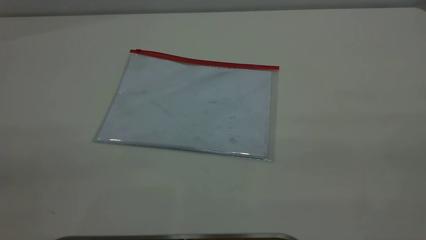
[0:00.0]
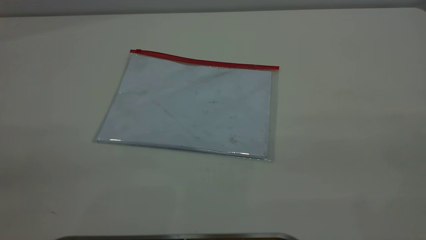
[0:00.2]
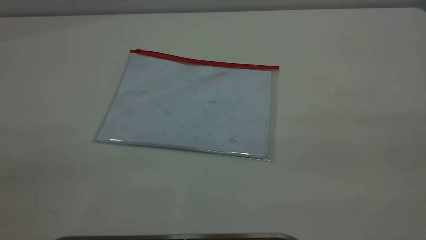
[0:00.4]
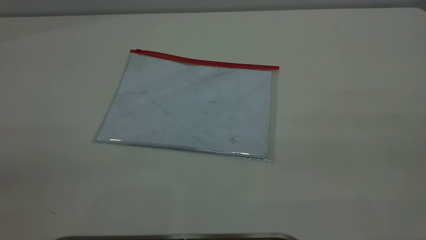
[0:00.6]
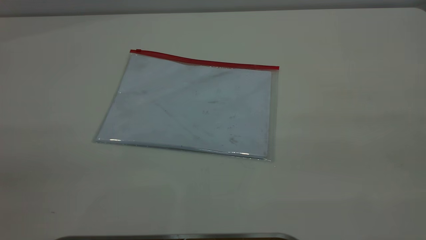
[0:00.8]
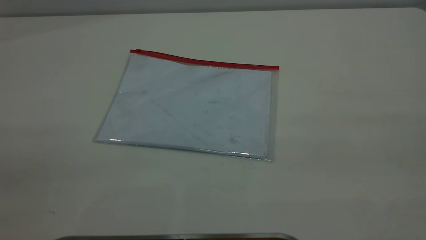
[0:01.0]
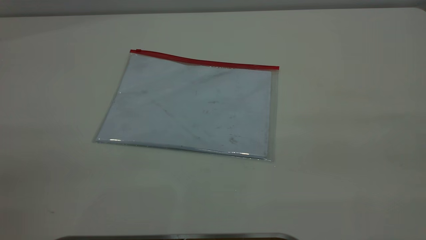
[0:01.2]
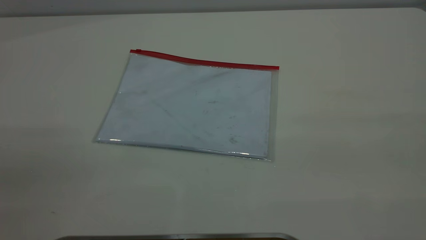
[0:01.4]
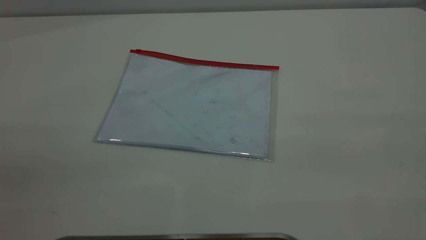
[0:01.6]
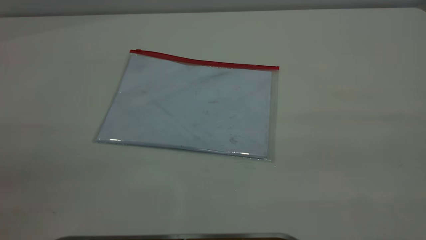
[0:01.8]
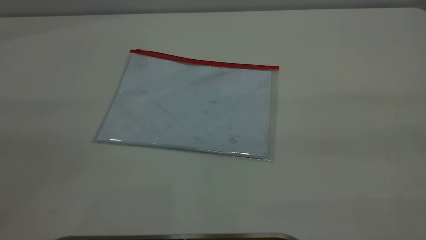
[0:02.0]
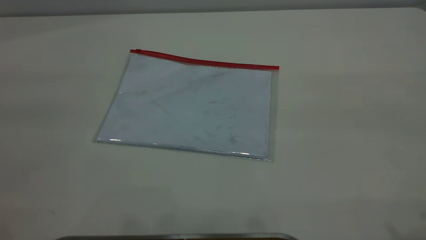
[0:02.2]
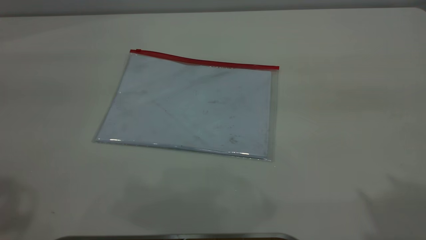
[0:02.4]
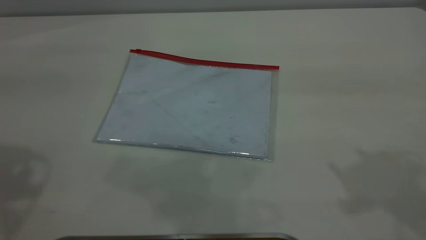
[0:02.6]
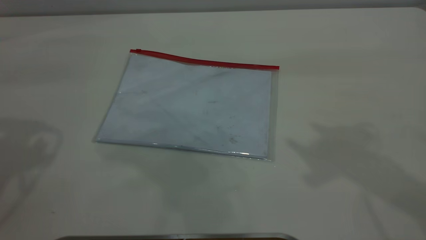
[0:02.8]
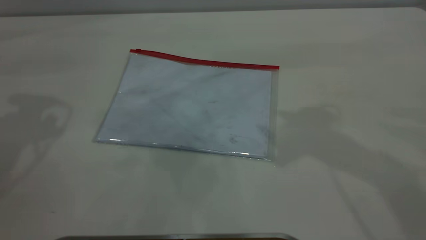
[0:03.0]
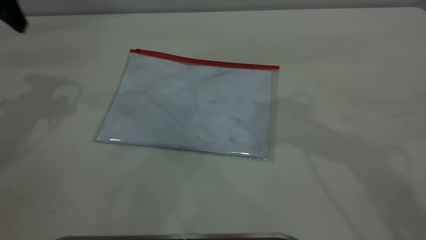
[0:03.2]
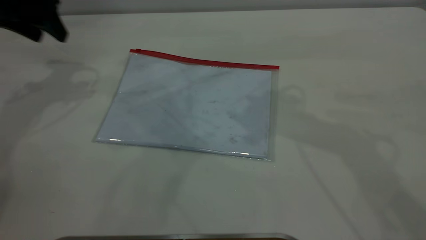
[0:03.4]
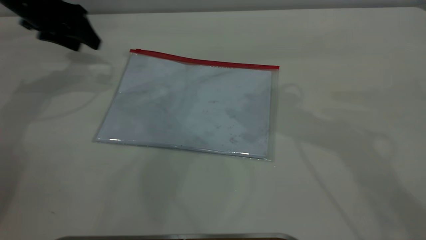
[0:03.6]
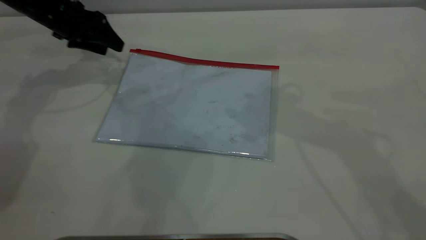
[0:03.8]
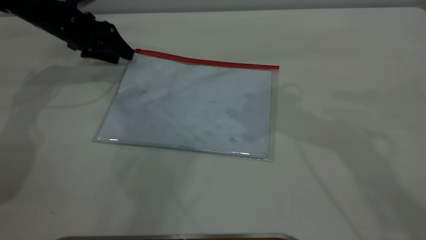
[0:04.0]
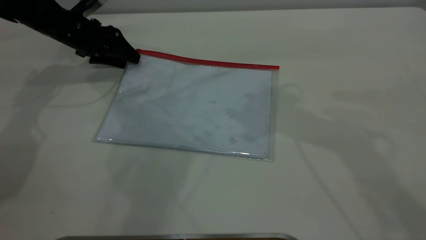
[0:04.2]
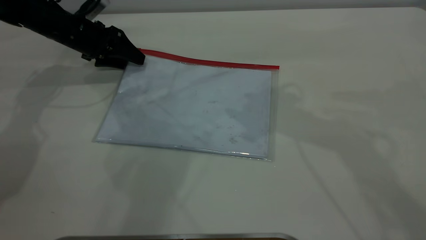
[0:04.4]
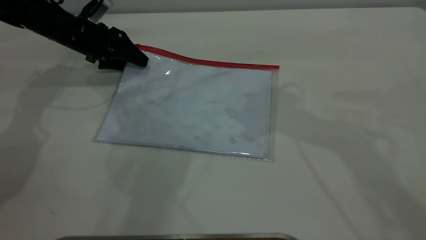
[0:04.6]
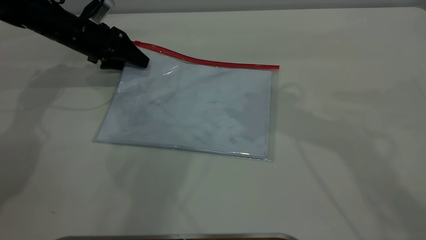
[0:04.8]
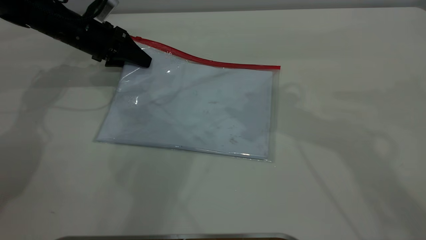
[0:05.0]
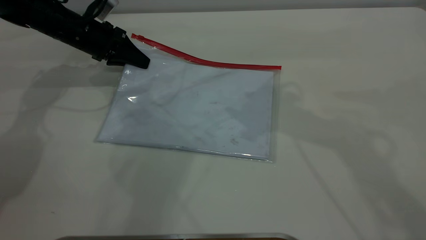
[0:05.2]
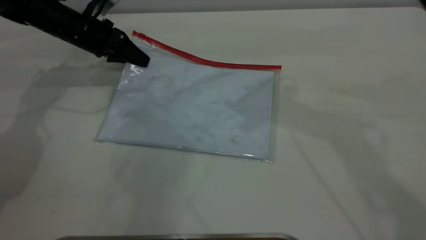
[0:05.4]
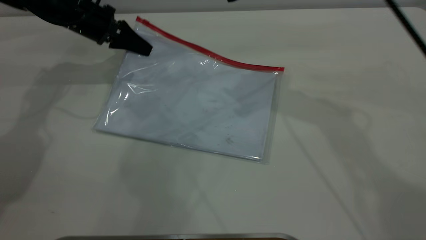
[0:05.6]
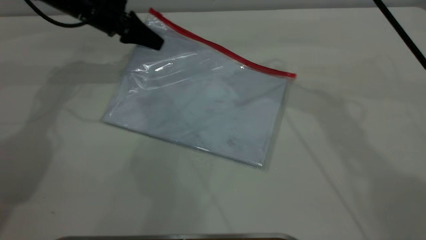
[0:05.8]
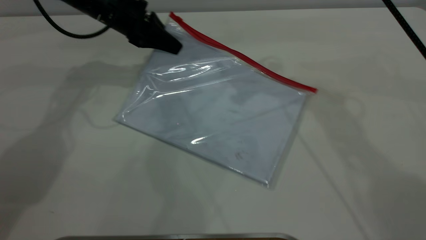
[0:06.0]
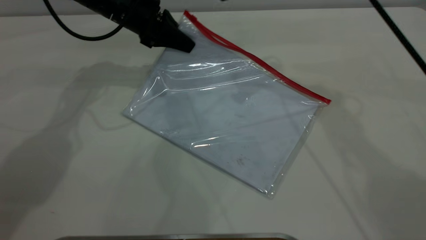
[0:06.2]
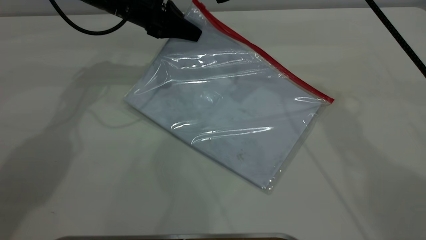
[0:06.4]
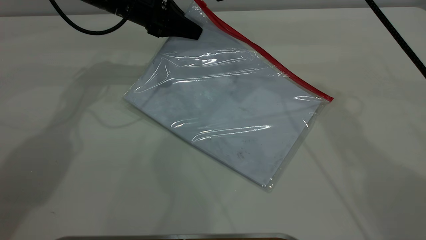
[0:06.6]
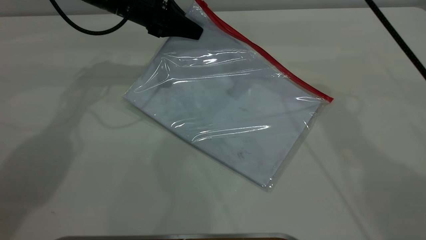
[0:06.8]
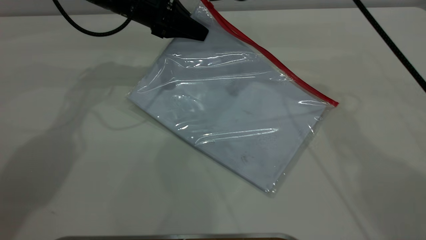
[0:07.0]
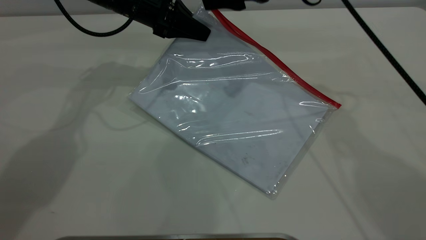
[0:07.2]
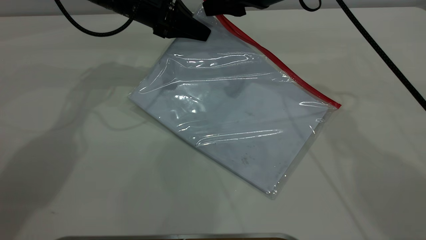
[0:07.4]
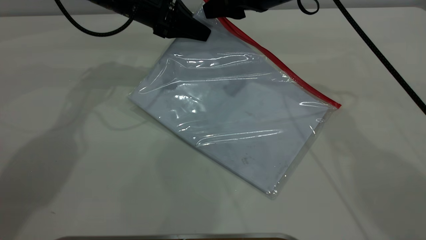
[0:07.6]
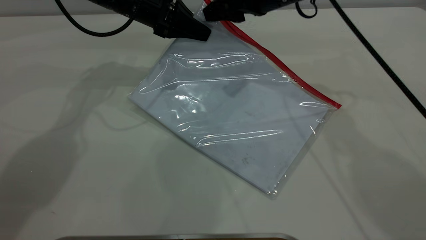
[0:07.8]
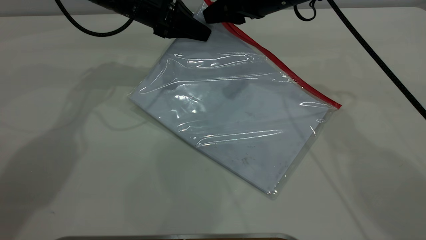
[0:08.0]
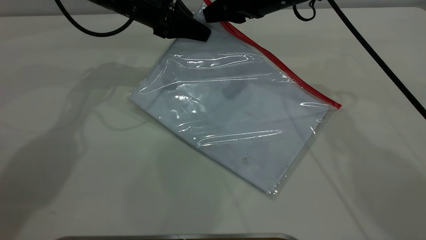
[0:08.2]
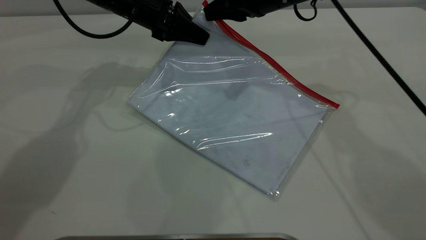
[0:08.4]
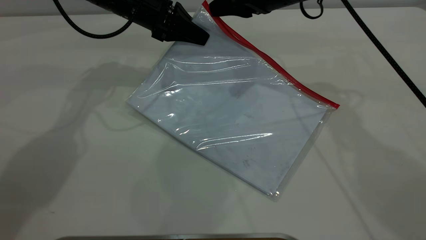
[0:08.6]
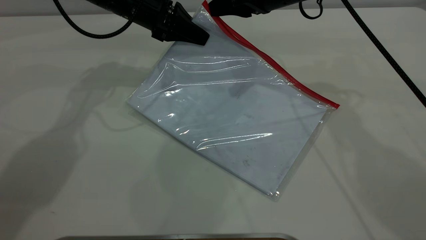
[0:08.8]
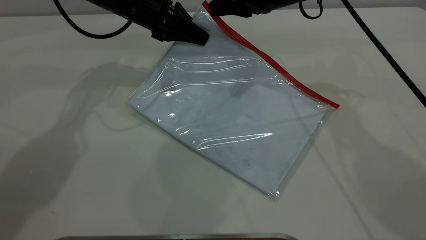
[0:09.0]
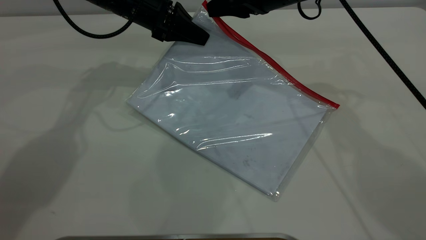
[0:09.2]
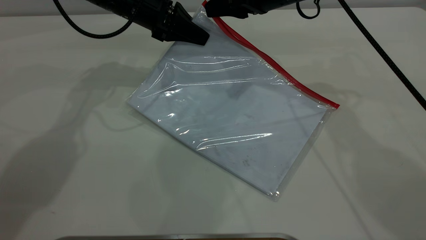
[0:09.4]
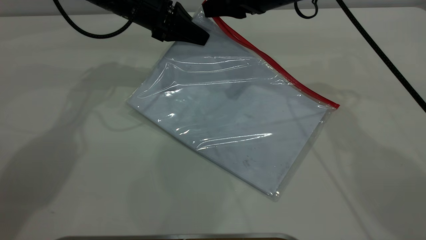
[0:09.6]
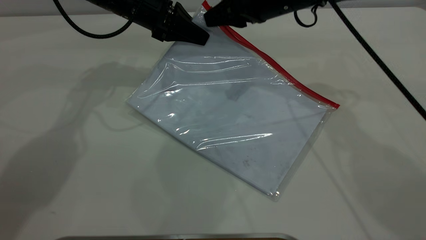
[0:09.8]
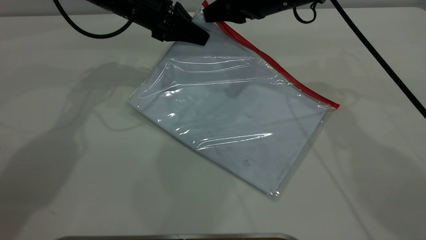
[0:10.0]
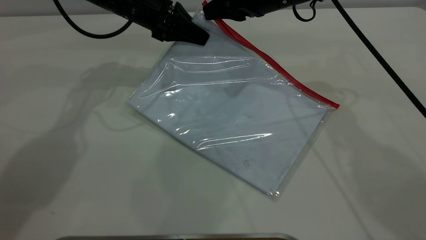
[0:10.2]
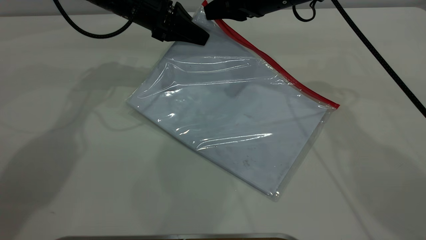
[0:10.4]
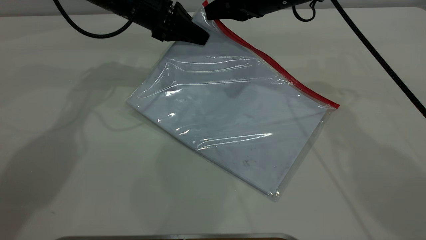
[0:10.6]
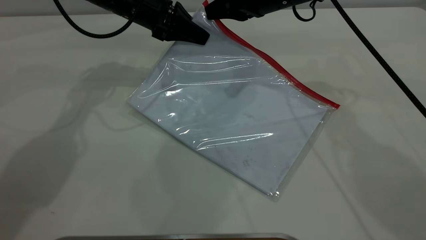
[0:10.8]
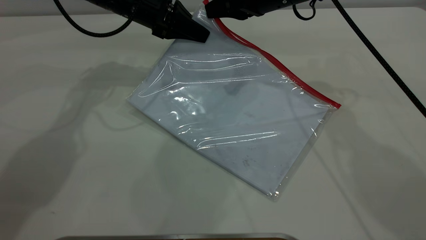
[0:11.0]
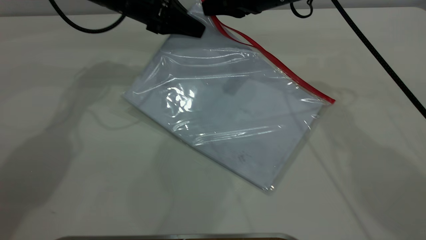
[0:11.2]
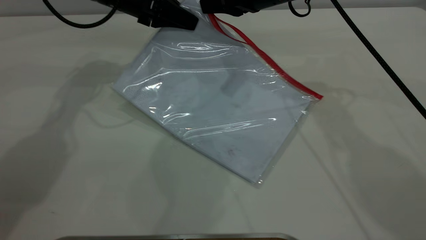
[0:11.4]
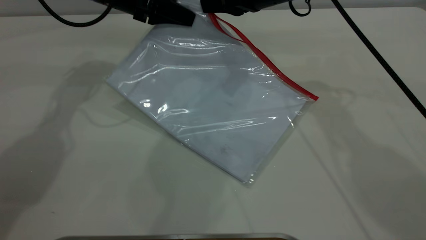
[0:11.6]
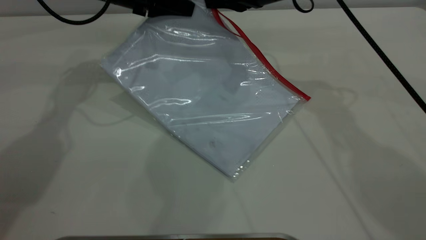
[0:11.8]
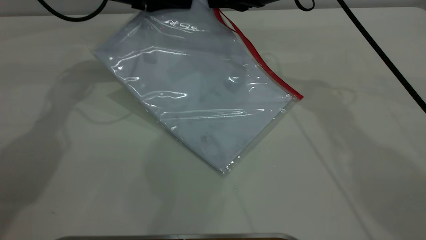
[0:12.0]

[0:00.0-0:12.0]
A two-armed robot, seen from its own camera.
Step, 0:00.0 to 0:05.0: Pick up the transparent plastic bag with the left gripper.
0:00.0 to 0:01.6: The two grippers keep their place.
0:03.0 to 0:04.4: The left gripper moves downward and forward, approximately 25 cm.
0:04.4 to 0:06.0: The left gripper heads to the right and upward, covering roughly 10 cm, and closes its fingers; the right gripper shifts some 10 cm forward.
0:06.0 to 0:07.6: The right gripper goes some 5 cm downward.
0:07.6 to 0:09.0: The right gripper closes up.
0:09.0 to 0:10.4: Neither gripper changes place.
0:10.4 to 0:12.0: The left gripper changes place by approximately 5 cm.

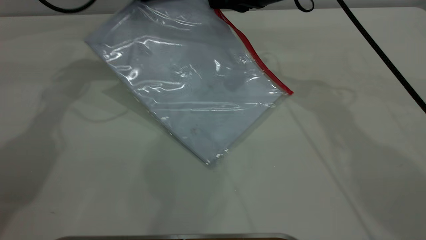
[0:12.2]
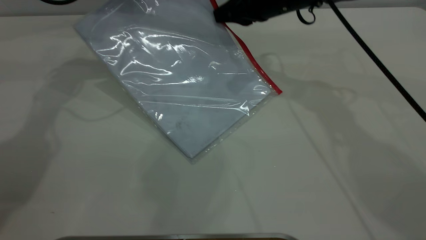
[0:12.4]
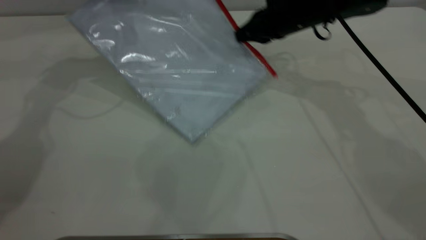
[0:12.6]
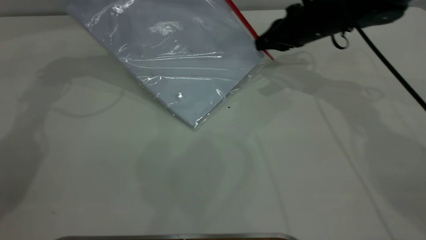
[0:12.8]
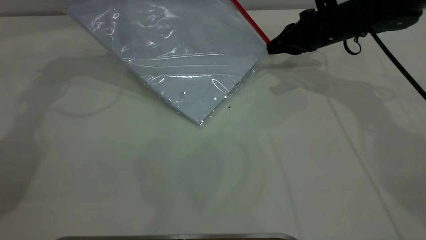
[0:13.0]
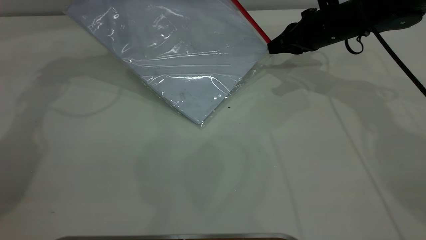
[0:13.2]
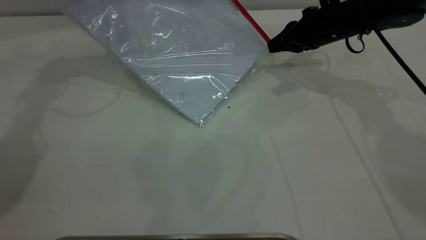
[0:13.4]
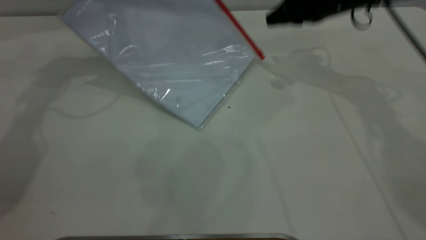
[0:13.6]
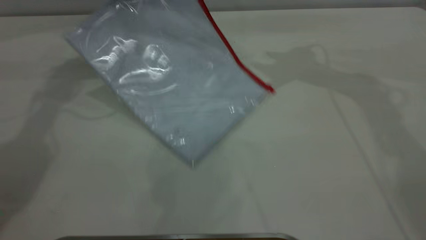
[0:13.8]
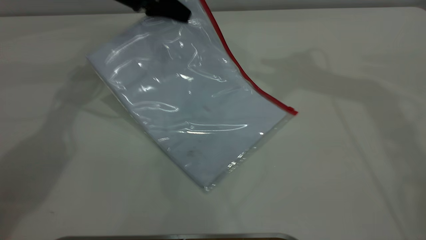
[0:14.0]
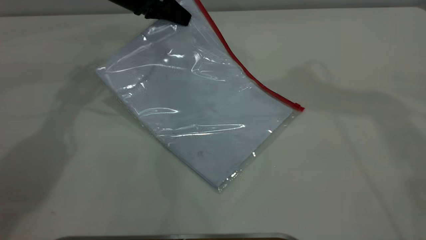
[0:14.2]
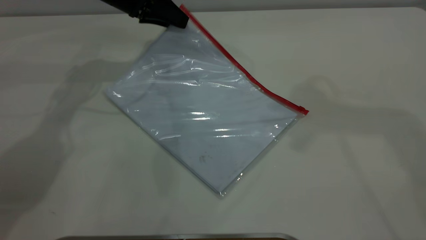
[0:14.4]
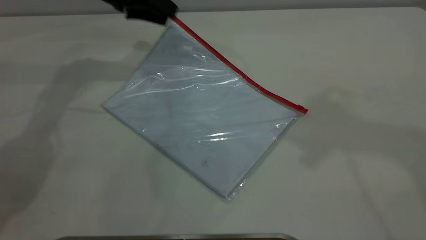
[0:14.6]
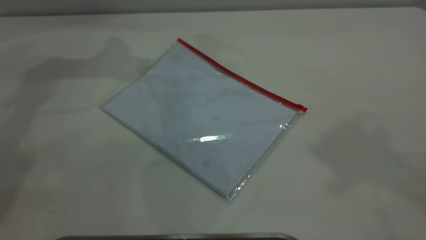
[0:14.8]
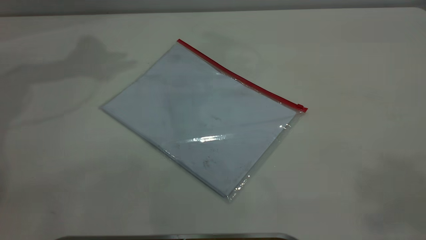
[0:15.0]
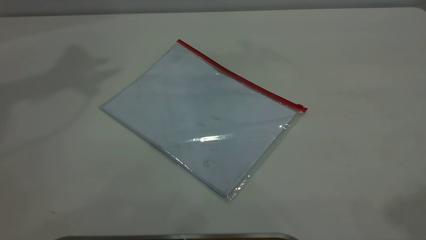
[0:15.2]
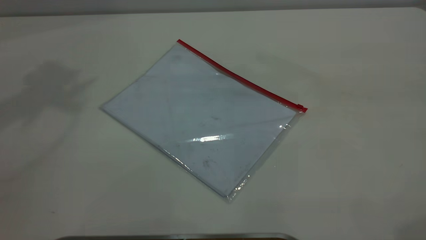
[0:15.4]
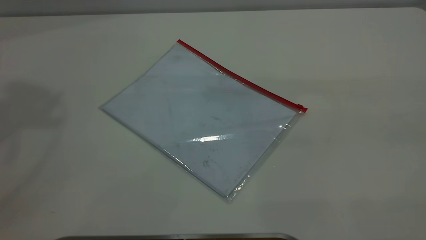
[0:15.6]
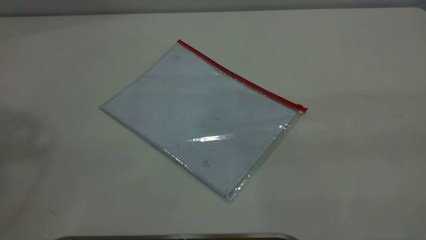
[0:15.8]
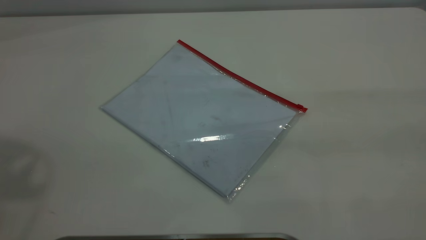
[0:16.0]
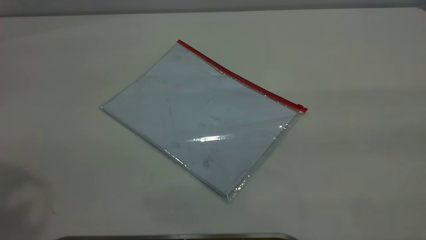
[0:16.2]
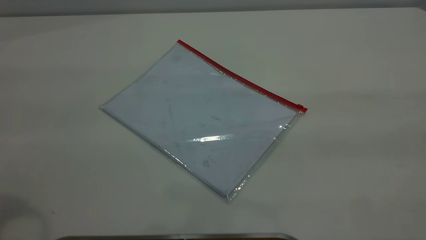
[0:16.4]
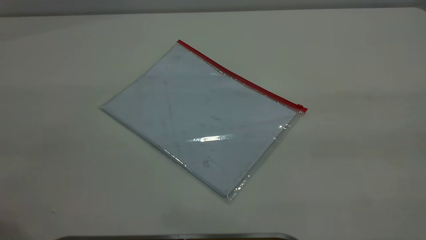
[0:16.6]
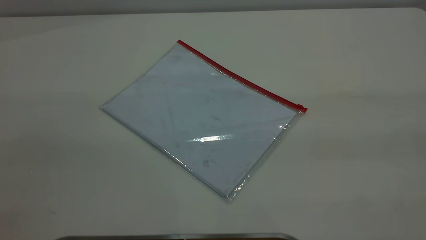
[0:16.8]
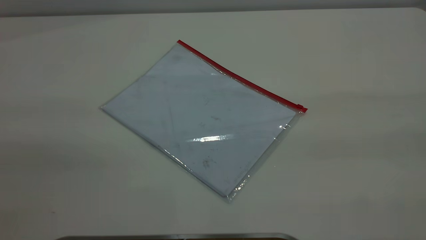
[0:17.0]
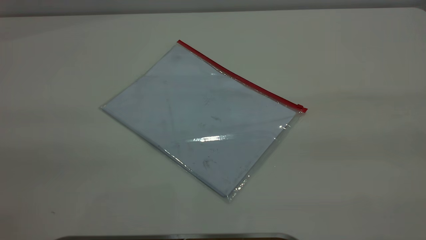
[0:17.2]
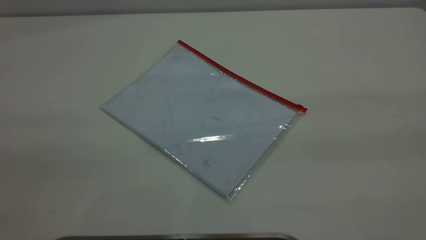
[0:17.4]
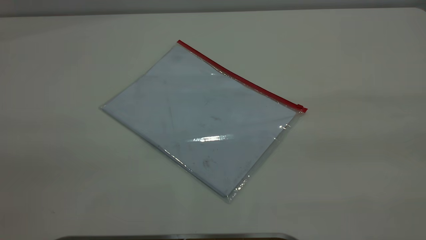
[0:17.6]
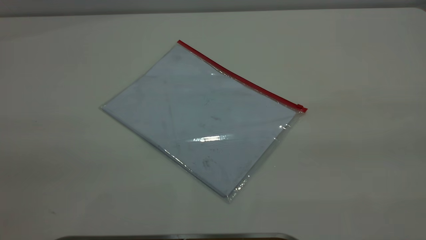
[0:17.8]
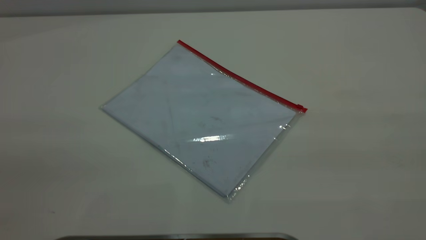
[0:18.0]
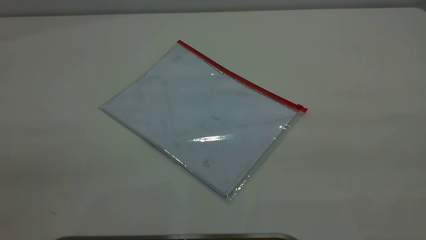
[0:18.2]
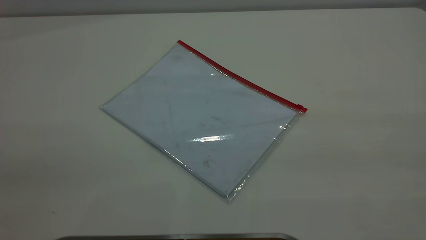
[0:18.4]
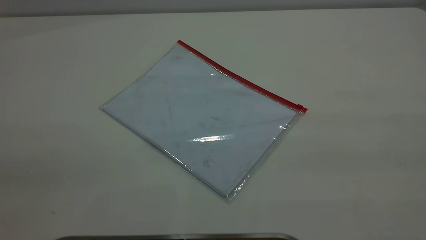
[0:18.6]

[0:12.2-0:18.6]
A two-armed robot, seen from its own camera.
Step, 0:13.6 to 0:14.6: Place the transparent plastic bag.
0:12.2 to 0:13.8: The right gripper heads upward and to the right, covering about 15 cm, and opens.
0:13.8 to 0:15.4: The left gripper travels upward by approximately 35 cm, and opens up; the right gripper heads backward and upward, covering roughly 40 cm.
